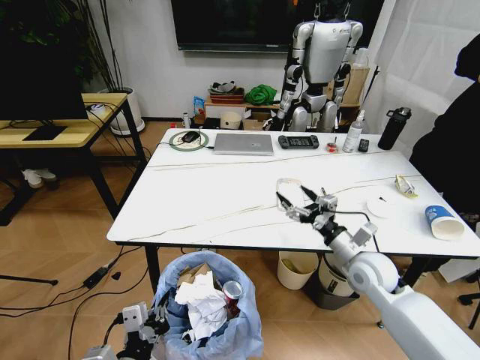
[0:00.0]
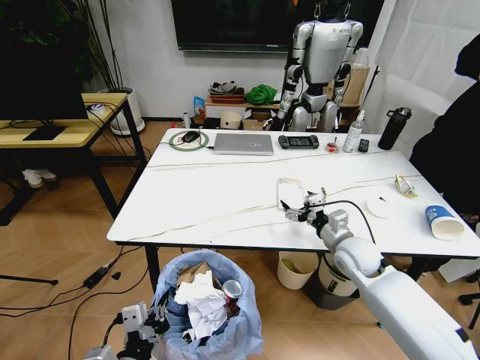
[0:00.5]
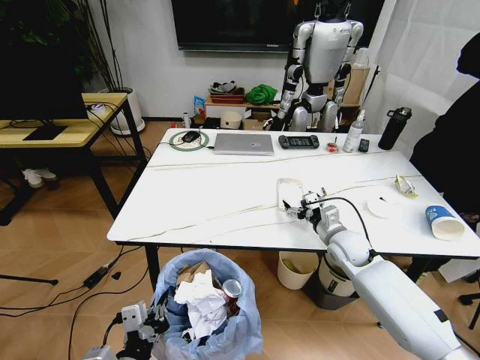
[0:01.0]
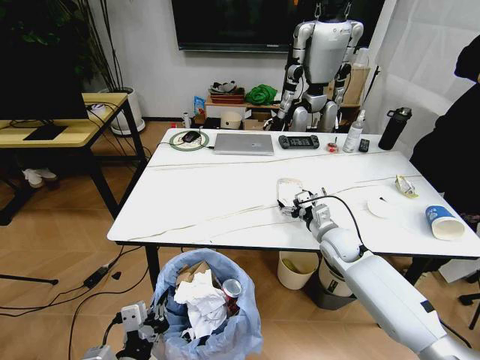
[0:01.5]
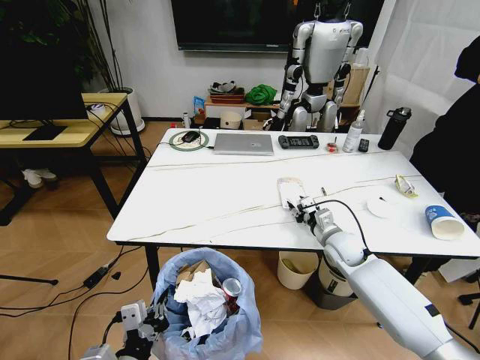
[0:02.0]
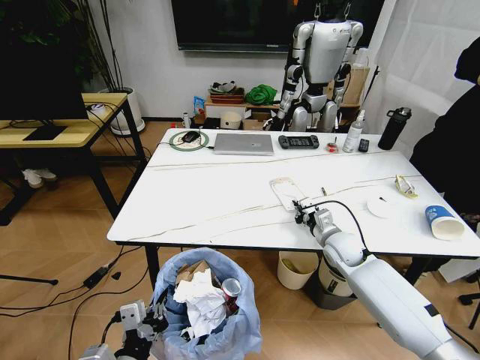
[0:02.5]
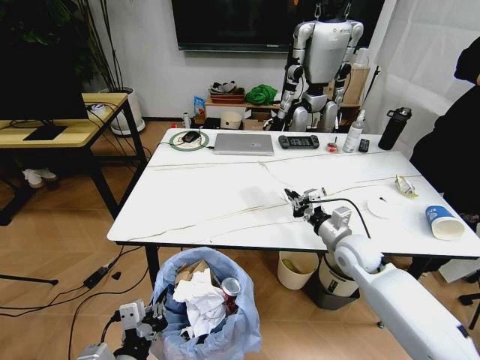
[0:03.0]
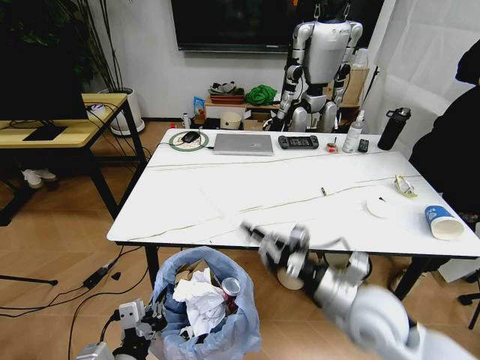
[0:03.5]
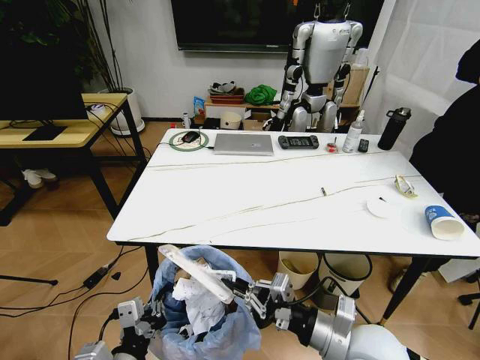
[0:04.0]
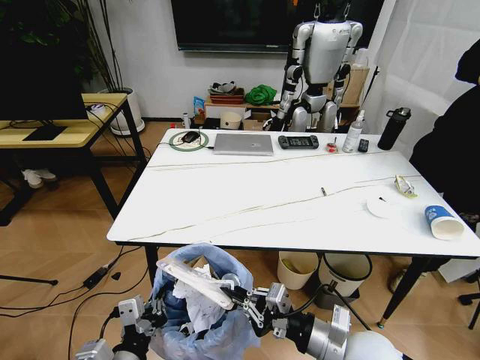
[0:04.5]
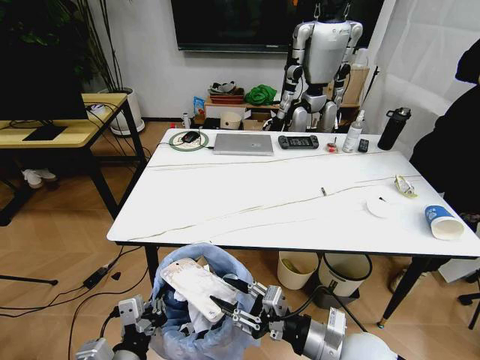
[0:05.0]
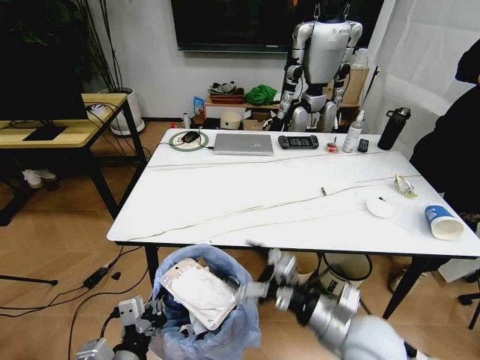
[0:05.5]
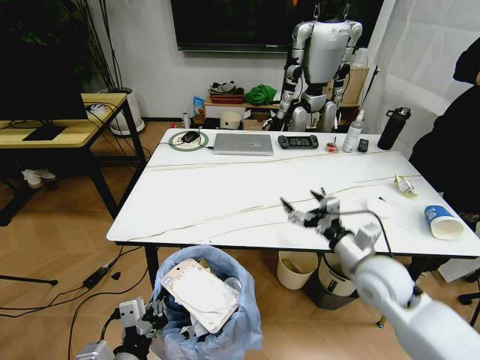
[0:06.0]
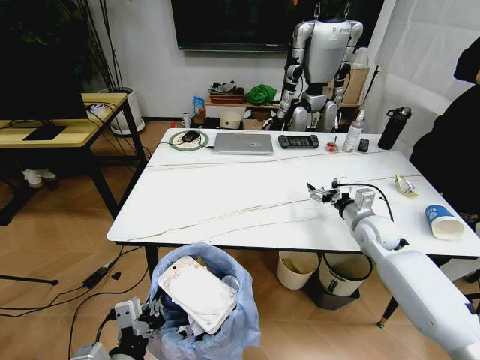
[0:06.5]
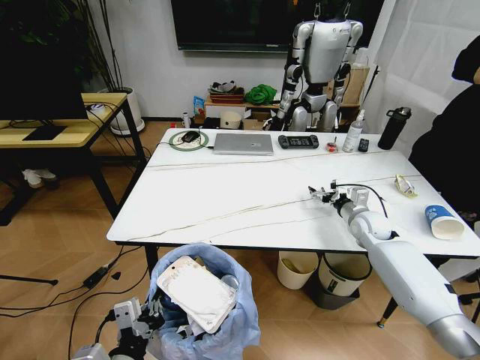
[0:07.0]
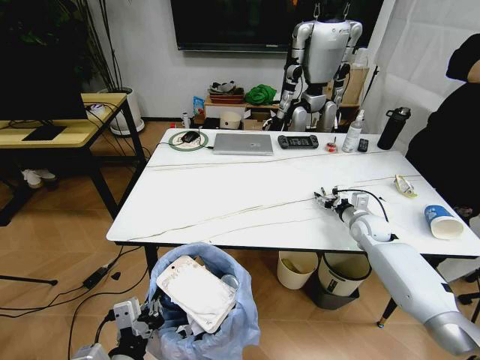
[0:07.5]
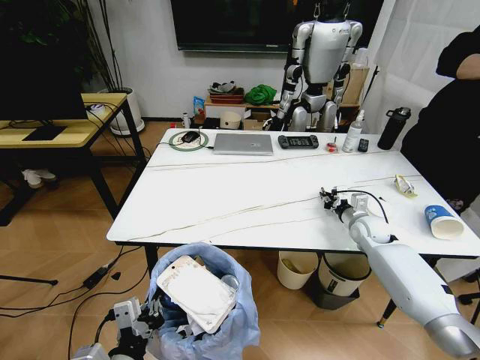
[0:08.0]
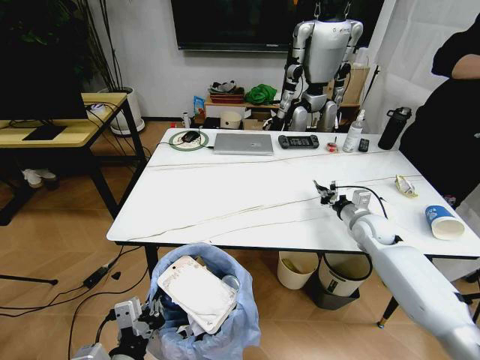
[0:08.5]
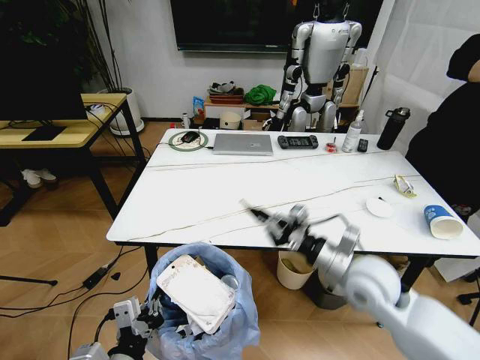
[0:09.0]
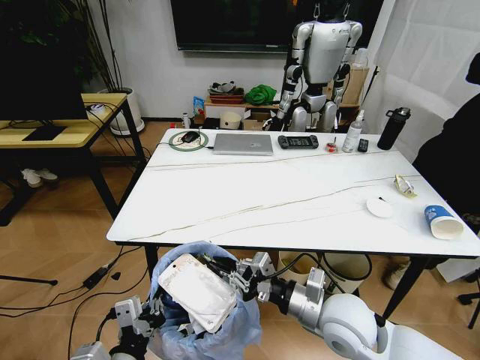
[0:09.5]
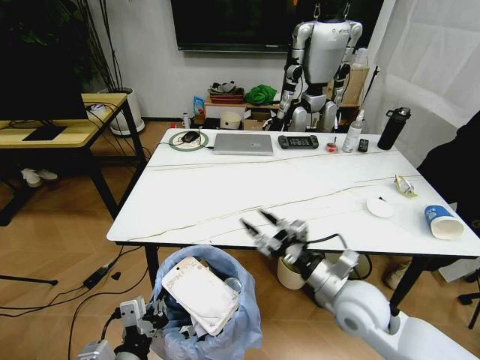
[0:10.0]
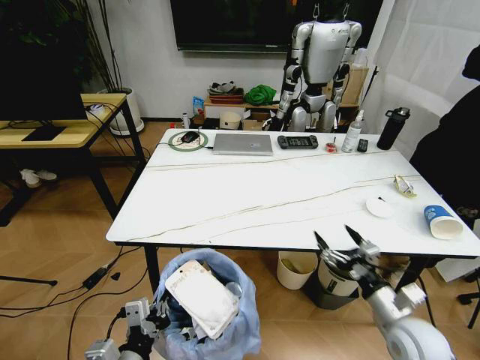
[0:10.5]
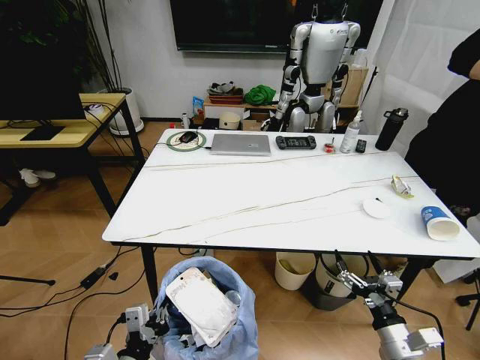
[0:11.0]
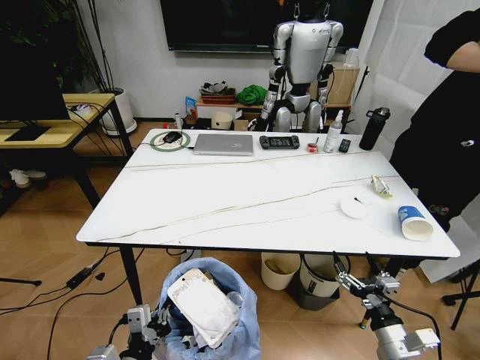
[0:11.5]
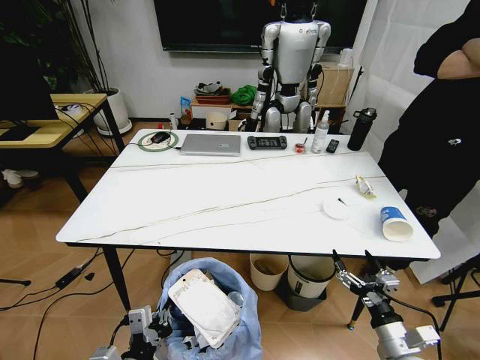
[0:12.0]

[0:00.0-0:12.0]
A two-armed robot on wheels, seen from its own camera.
Task of the whole recording: Pick up the trash bin and place the trash from the table into it.
0:00.0 to 0:02.0: The right gripper goes about 10 cm forward, and closes up.
0:02.0 to 0:04.0: The right gripper heads backward, covering approximately 25 cm, and closes up.
0:04.0 to 0:06.0: The right gripper travels forward and to the right by about 15 cm, and opens.
0:06.0 to 0:08.0: The right gripper moves forward, to the right and downward, some 25 cm, and closes.
0:08.0 to 0:10.0: The right gripper heads backward and to the left, covering some 25 cm, and opens.
0:10.0 to 0:12.0: The right gripper moves to the right, downward and backward, approximately 20 cm.

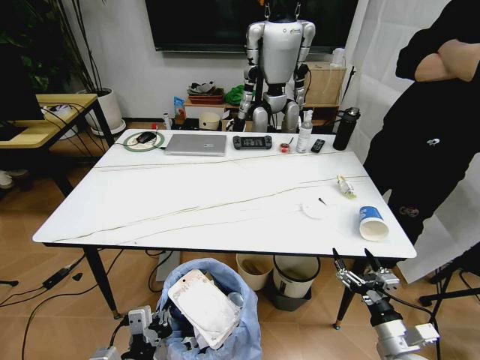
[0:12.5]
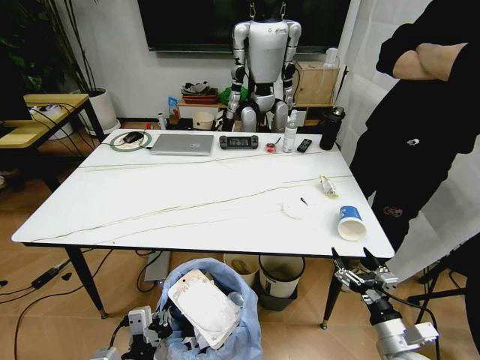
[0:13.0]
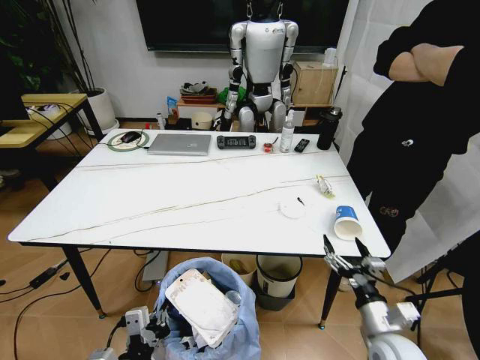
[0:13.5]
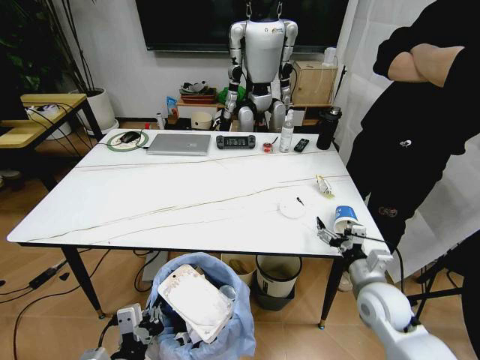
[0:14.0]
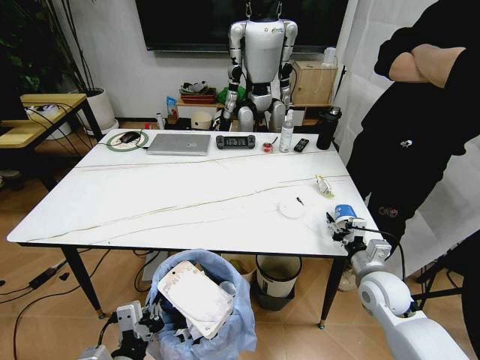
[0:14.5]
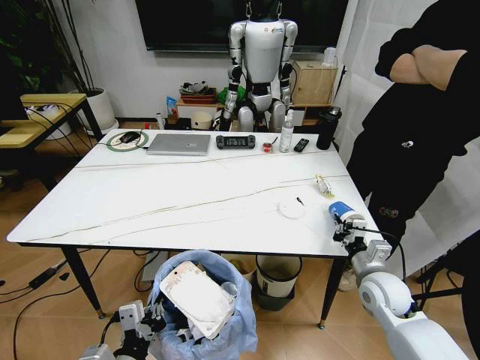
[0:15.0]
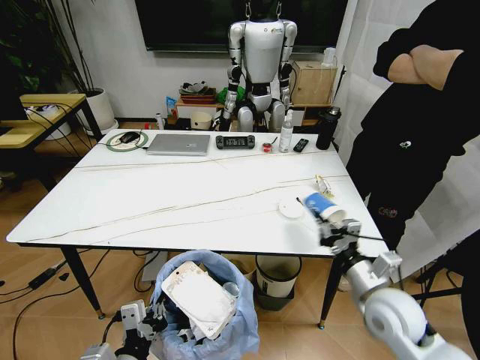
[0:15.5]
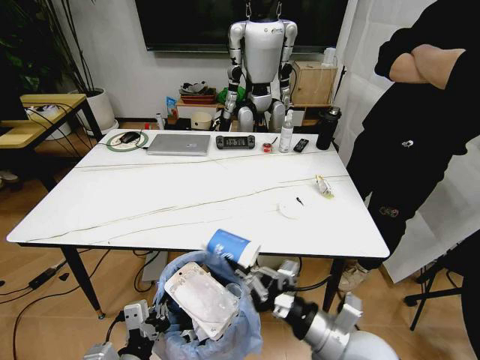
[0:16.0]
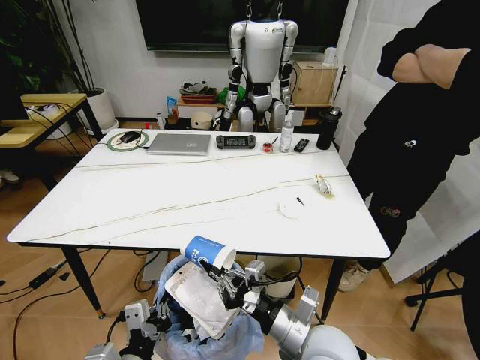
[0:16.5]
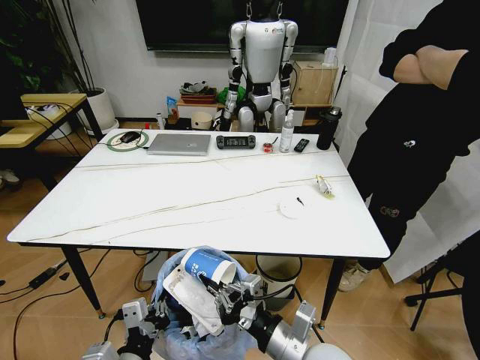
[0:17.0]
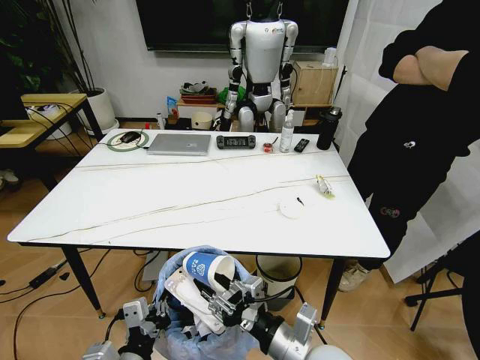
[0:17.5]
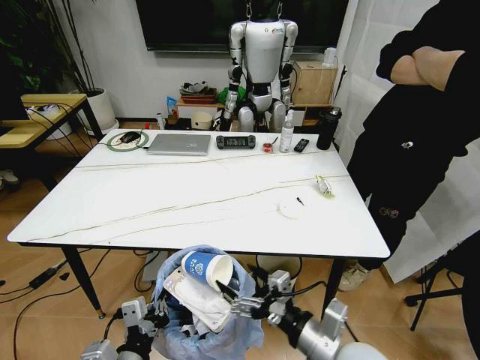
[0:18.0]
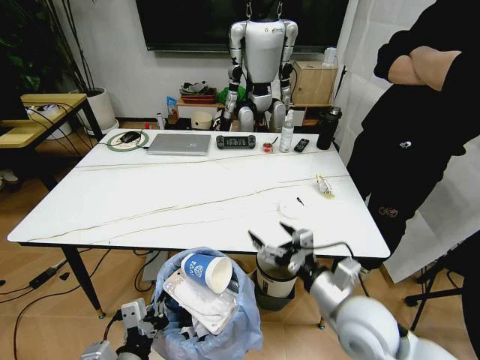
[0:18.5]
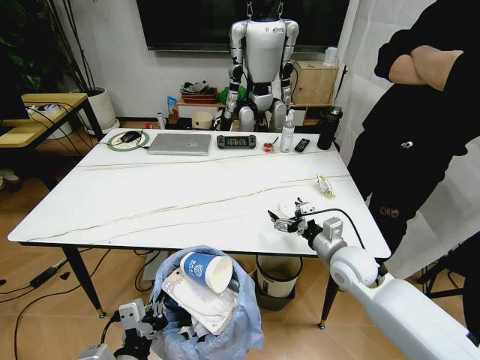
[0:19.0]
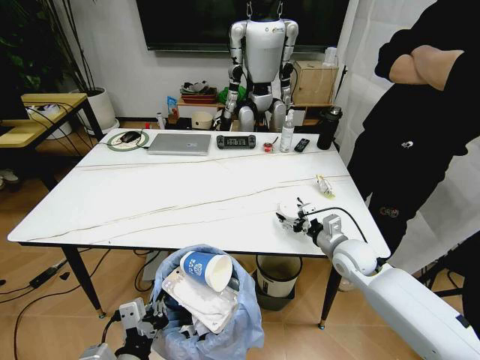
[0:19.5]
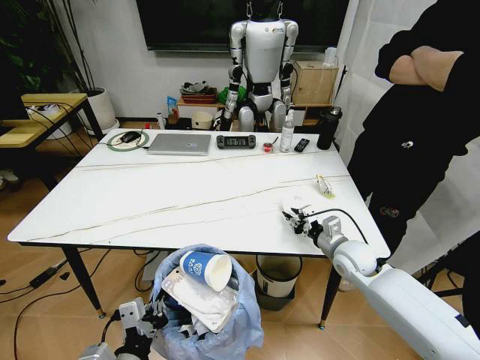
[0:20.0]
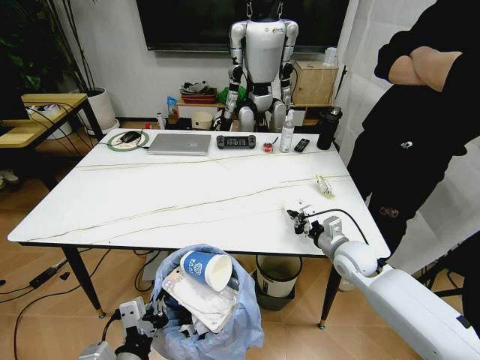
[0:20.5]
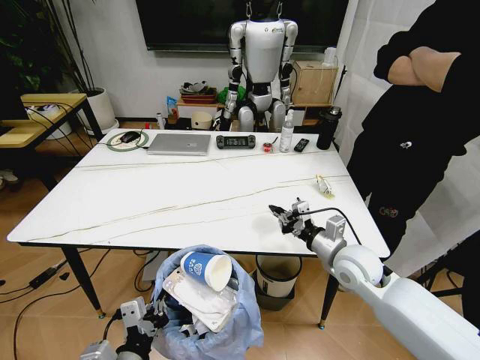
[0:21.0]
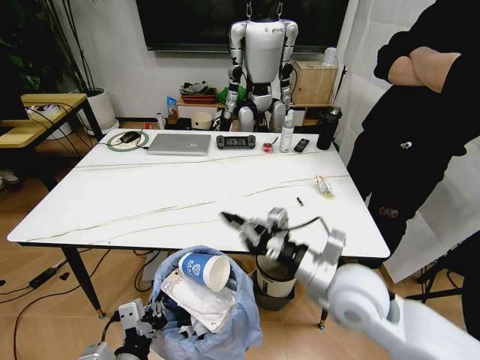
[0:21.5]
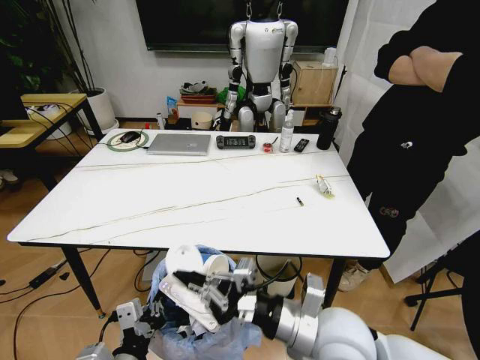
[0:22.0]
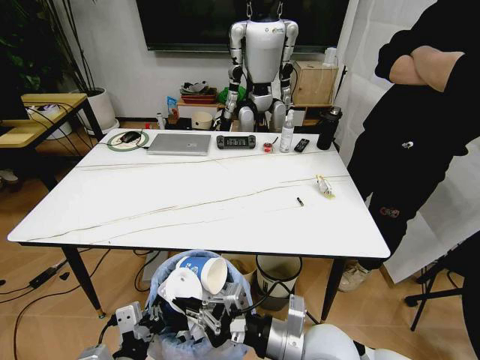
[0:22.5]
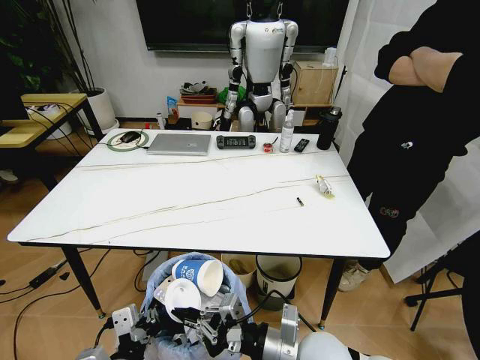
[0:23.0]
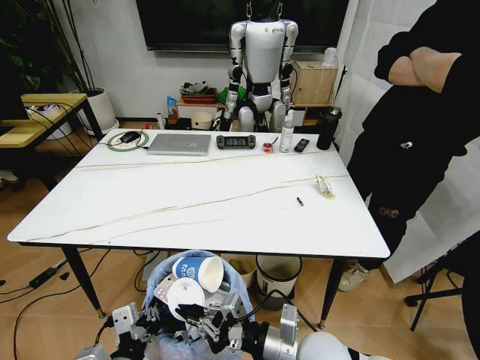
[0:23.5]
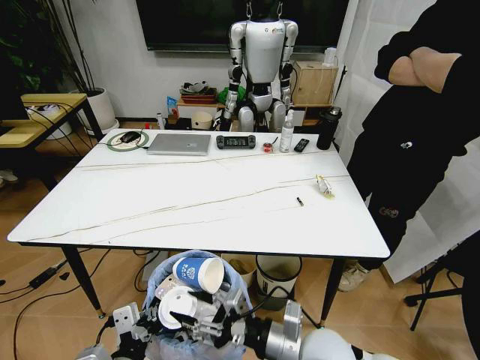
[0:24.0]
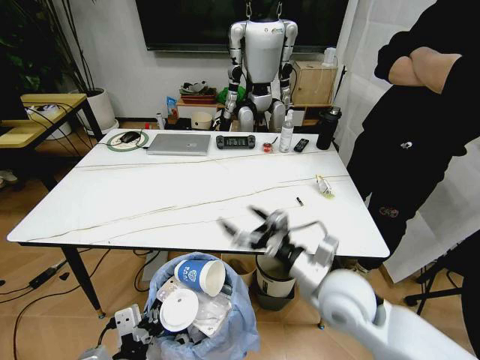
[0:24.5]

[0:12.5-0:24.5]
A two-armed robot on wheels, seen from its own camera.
Task of the whole recording: Pick up the trash bin and place the trash from the table into it.
0:12.5 to 0:14.5: The right gripper travels forward by roughly 15 cm, and closes up.
0:14.5 to 0:16.5: The right gripper heads to the left and backward, covering roughly 20 cm, and closes up.
0:16.5 to 0:18.5: The right gripper shifts roughly 5 cm to the right, and opens.
0:18.5 to 0:20.5: The right gripper goes approximately 20 cm forward and downward, and closes its fingers.
0:20.5 to 0:22.5: The right gripper heads backward and to the left, covering some 25 cm.
0:22.5 to 0:24.5: The right gripper travels forward by roughly 5 cm, and opens up.

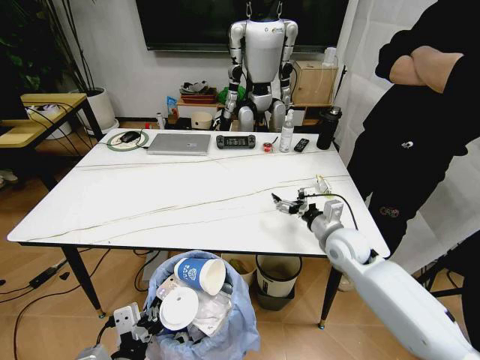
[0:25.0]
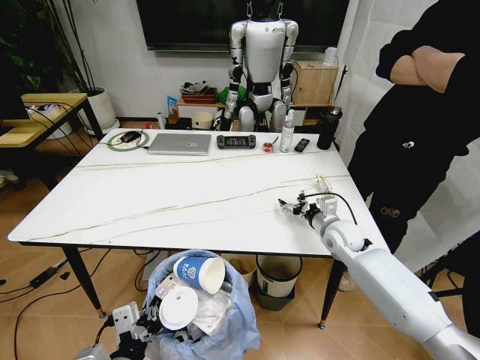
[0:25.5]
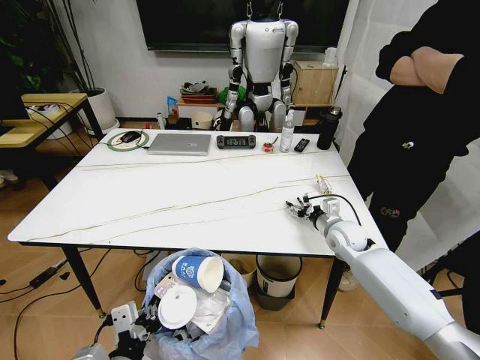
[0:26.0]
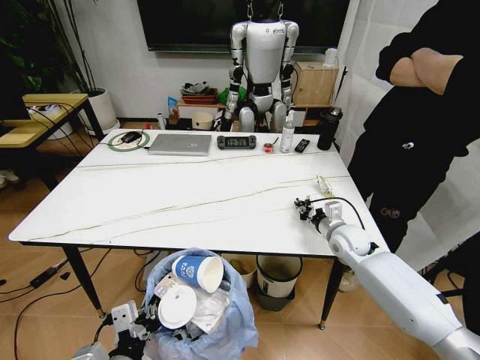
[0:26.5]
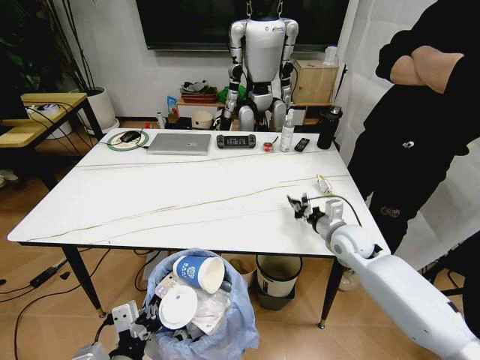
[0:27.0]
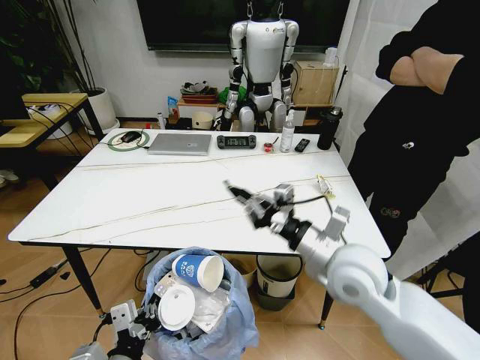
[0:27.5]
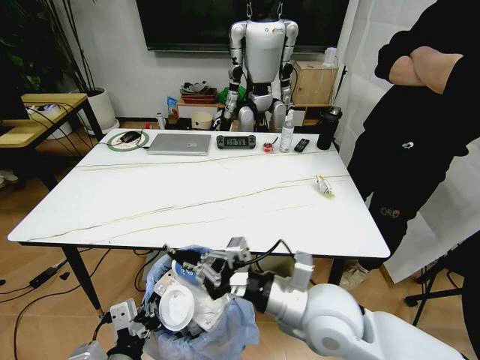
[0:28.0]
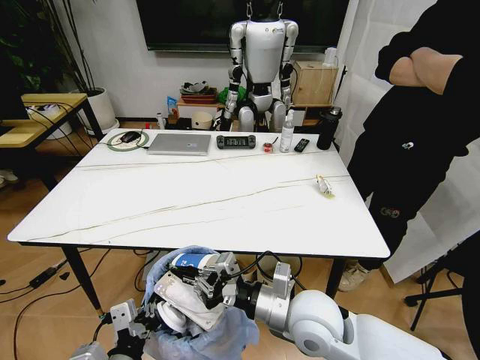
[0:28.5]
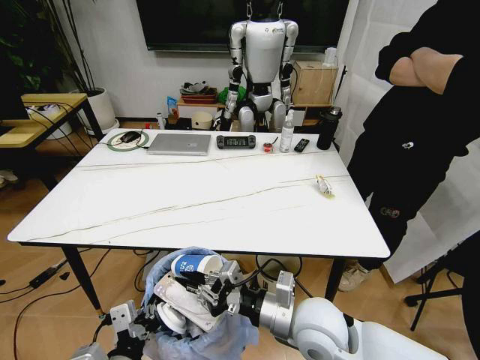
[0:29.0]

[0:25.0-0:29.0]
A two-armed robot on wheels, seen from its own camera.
Task of the whole recording: Pick up the trash bin and place the trash from the table into it.
0:25.0 to 0:27.0: The right gripper closes up.
0:27.0 to 0:29.0: The right gripper is displaced backward and to the left by some 25 cm.
